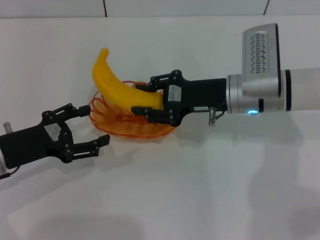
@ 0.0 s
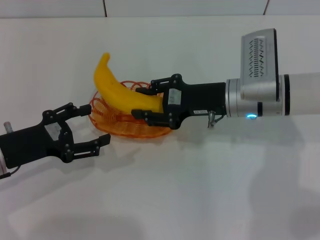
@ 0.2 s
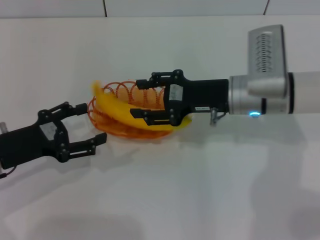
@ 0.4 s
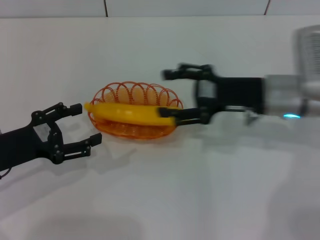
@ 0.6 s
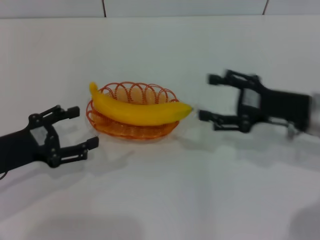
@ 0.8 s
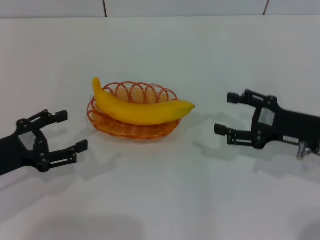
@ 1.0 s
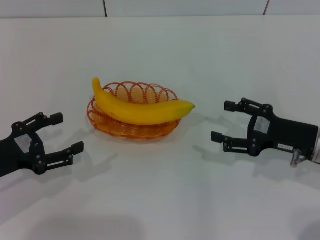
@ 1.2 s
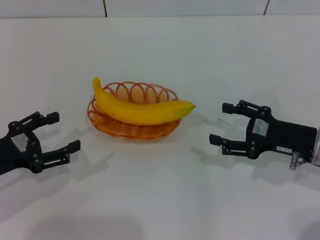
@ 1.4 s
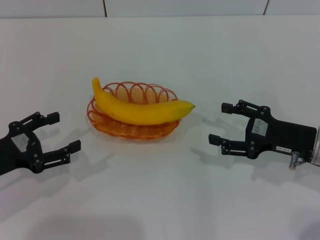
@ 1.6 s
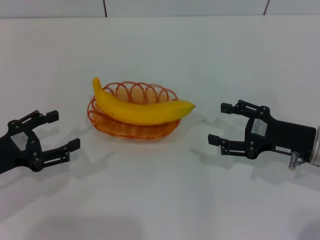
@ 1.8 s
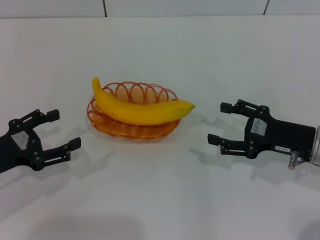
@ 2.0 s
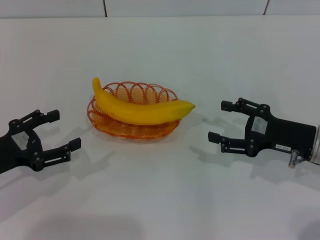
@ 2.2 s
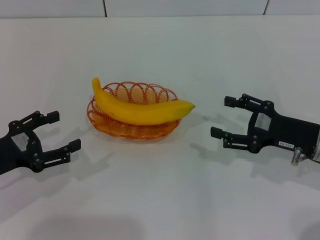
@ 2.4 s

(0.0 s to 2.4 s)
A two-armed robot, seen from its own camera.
Step, 0.0 s - 0.6 s: Place the banana into the basket with the right gripper.
0.0 s - 1.2 s: The right gripper goes about 15 cm to the right and backward, and opens up.
1.2 s - 2.4 s: Both grippers stay about where they are.
